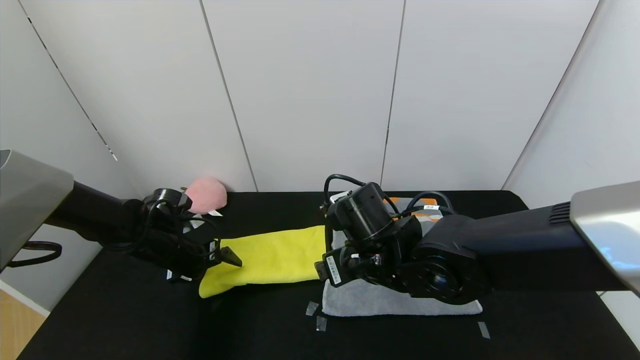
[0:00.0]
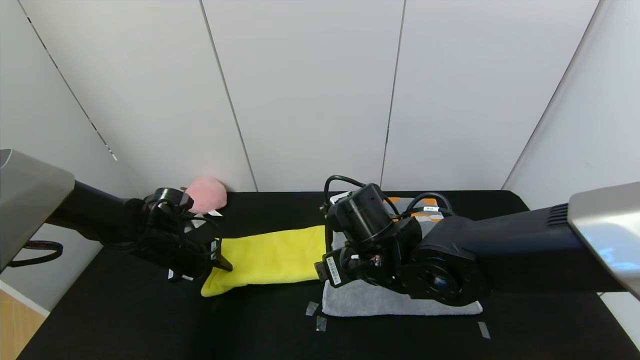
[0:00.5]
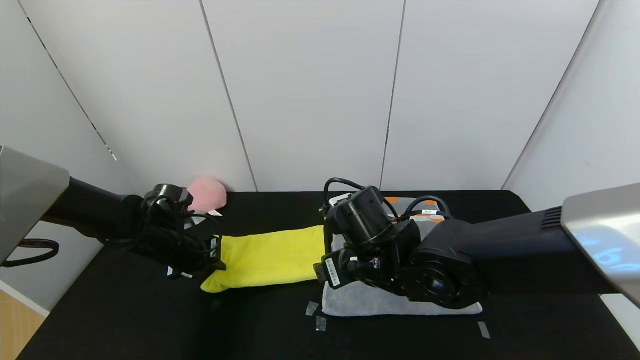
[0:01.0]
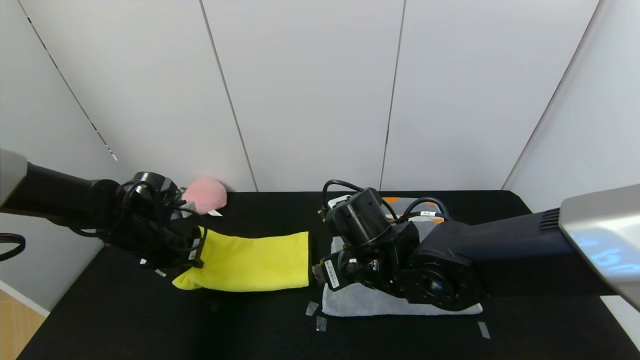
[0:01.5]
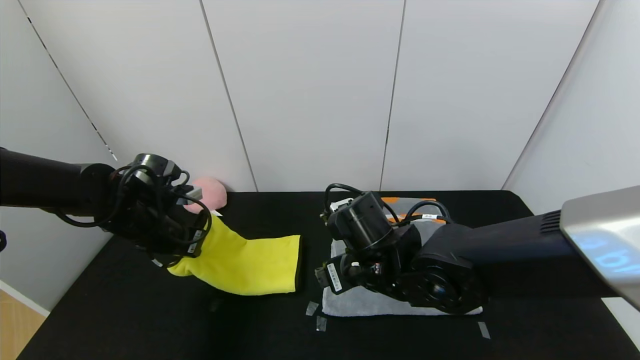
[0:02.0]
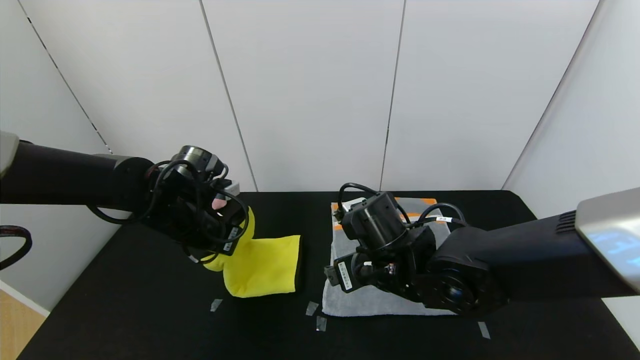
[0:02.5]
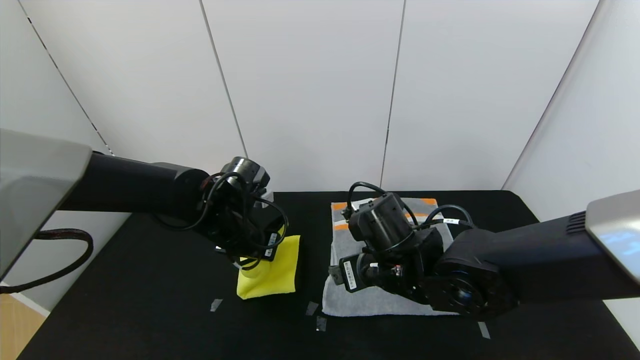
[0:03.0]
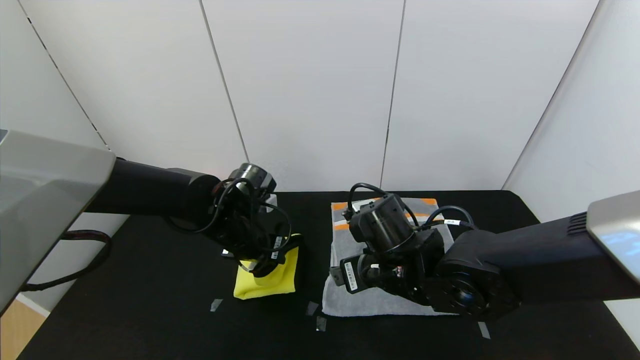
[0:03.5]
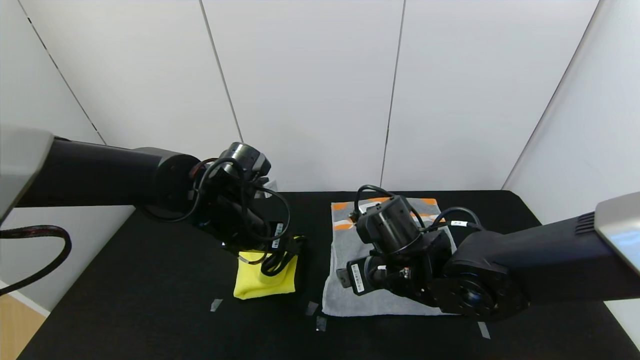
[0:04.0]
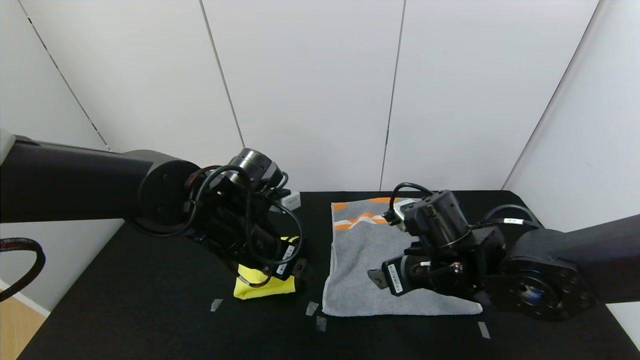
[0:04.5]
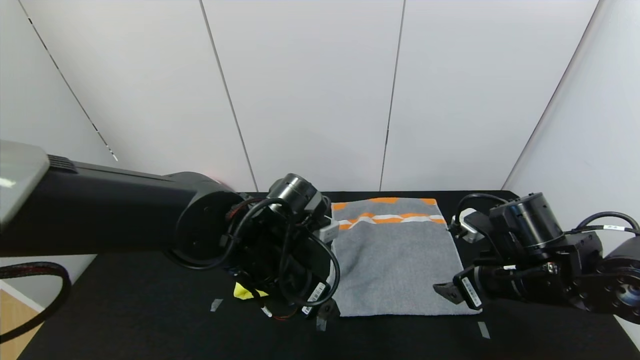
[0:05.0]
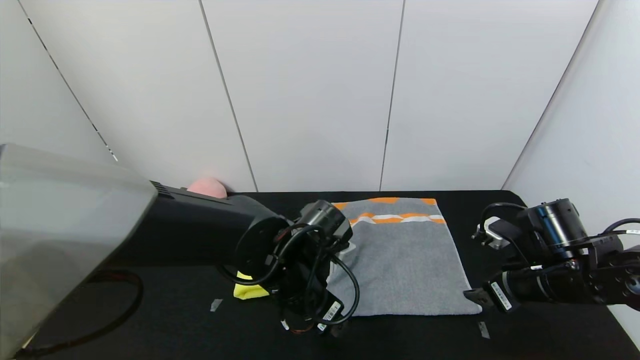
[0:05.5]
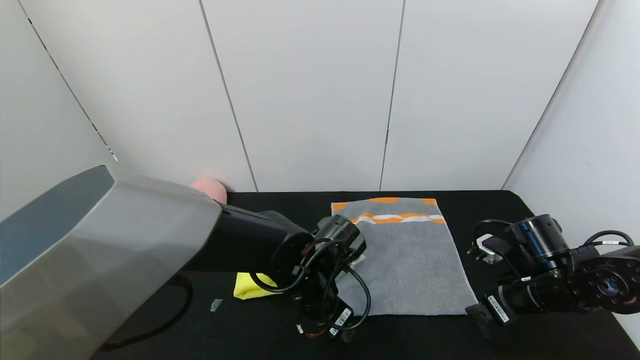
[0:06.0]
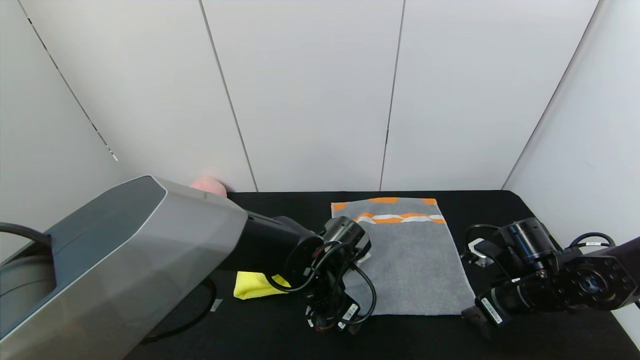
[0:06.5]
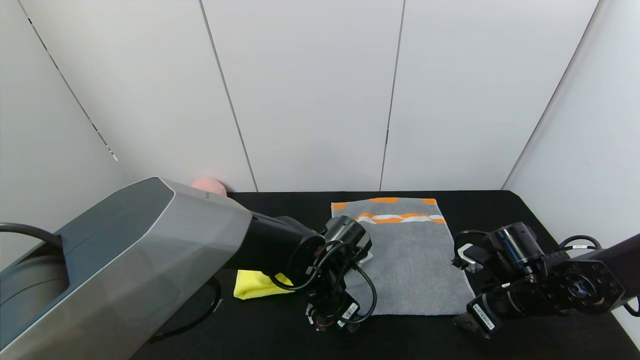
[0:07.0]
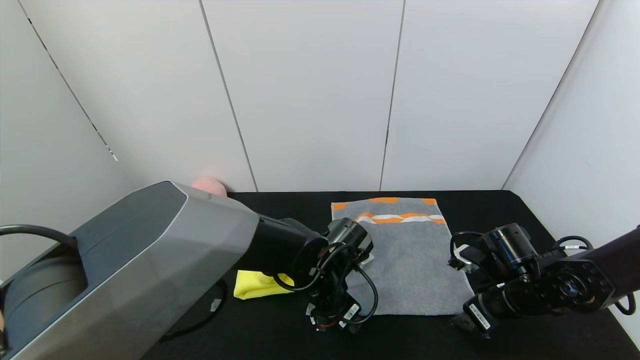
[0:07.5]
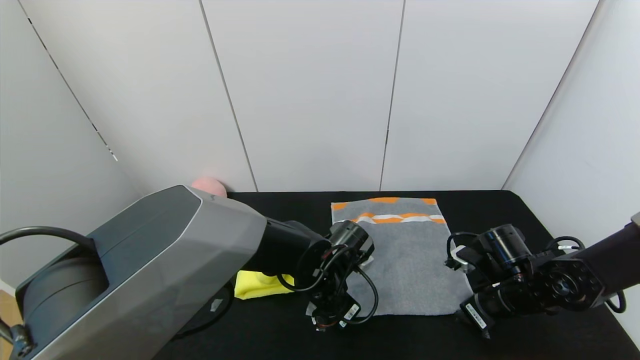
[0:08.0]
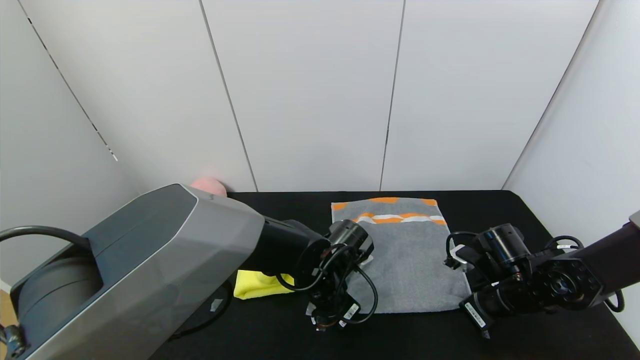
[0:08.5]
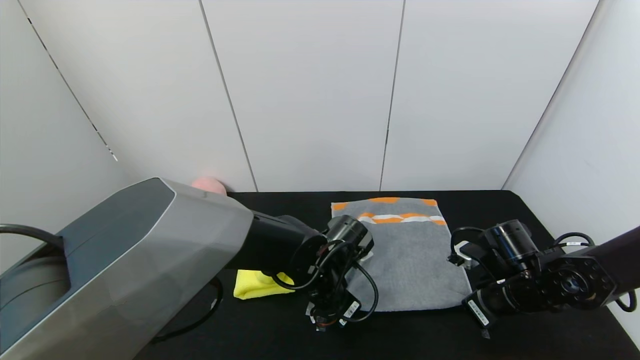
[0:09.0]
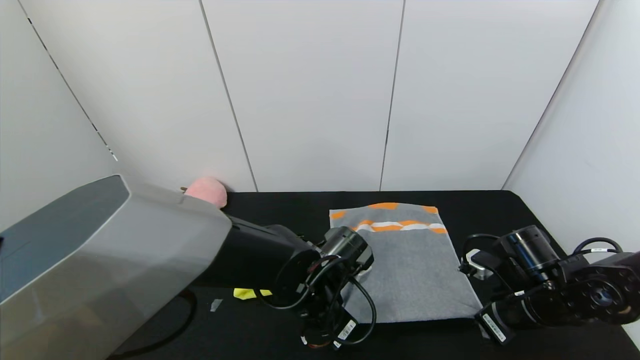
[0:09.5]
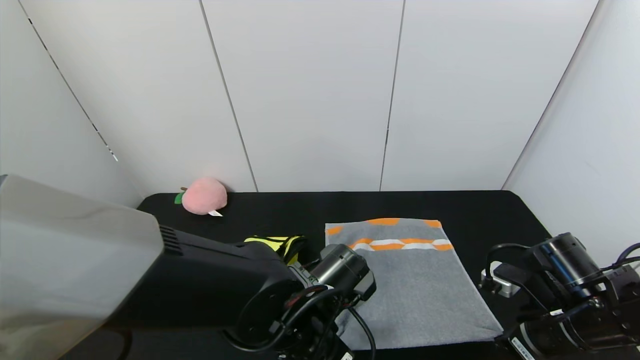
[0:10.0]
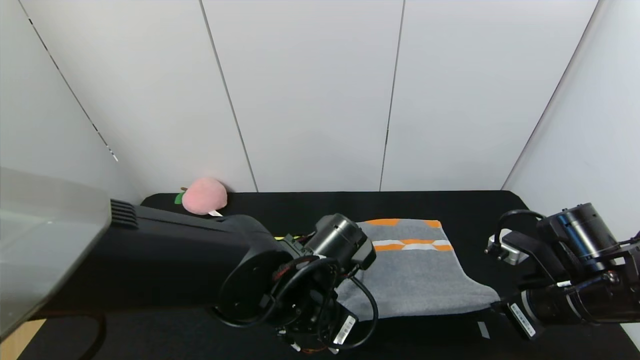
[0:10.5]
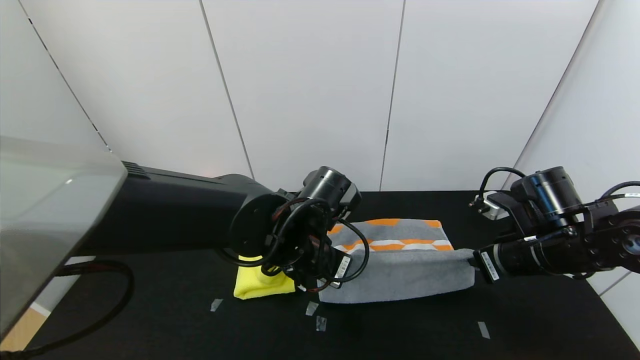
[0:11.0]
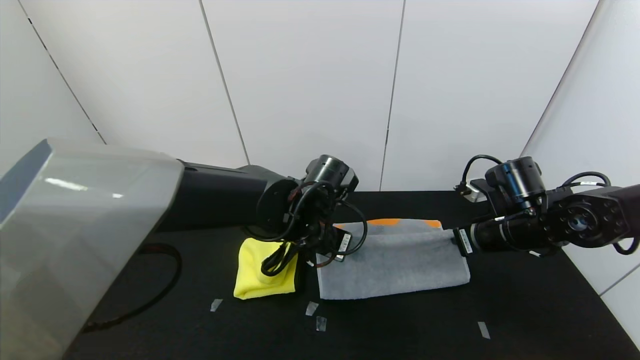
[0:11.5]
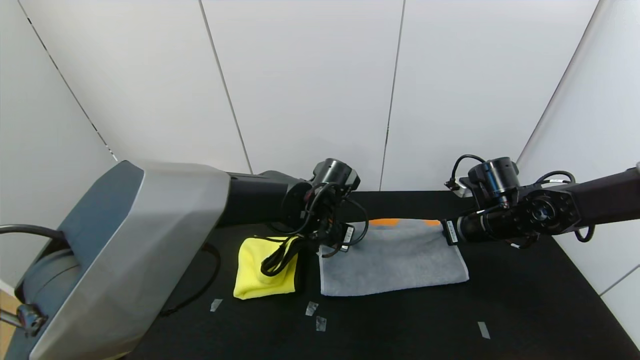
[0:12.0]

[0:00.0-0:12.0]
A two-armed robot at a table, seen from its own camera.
Task of the whole recording: Use the gripper to fold the yellow towel and grey towel in half twice,then put the yellow towel on the grey towel.
Step, 0:00.0 to 0:04.0: Fold the yellow towel from left to right with left gripper.
0:00.0 to 0:02.0: The left gripper moves upward, roughly 10 cm, and closes up.
0:02.0 to 0:04.0: The left gripper shifts some 15 cm to the right, and opens.
0:04.0 to 0:06.0: The left gripper is displaced to the right, downward and backward by some 15 cm; the right gripper goes roughly 20 cm to the right.
0:06.0 to 0:08.0: The right gripper closes up, while the left gripper closes.
0:08.0 to 0:10.0: Both grippers travel together backward, approximately 10 cm. The left gripper closes its fingers. The right gripper closes its fingers.
0:10.0 to 0:12.0: Both grippers travel together forward, about 15 cm.

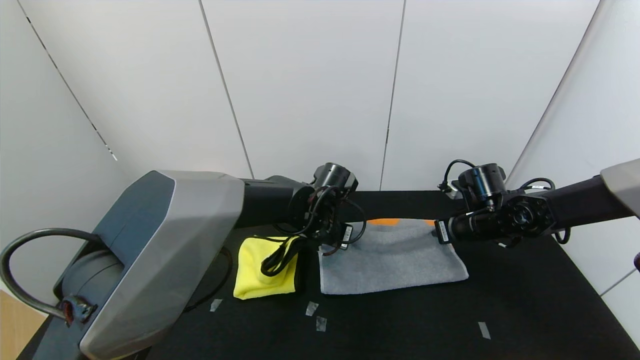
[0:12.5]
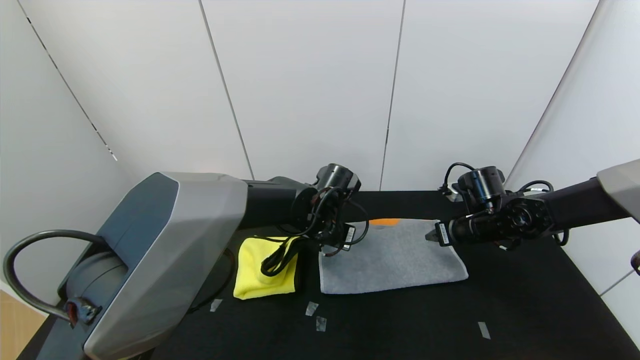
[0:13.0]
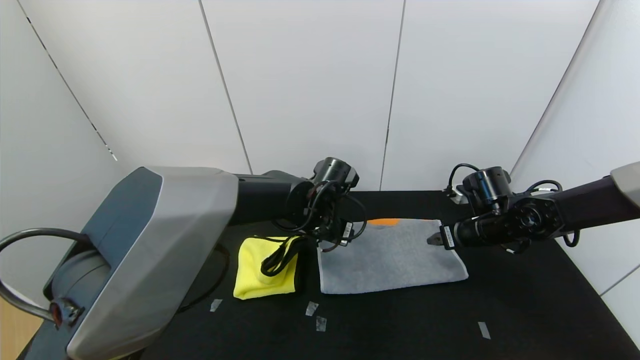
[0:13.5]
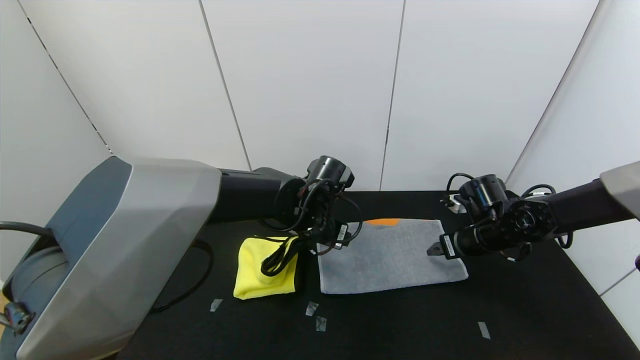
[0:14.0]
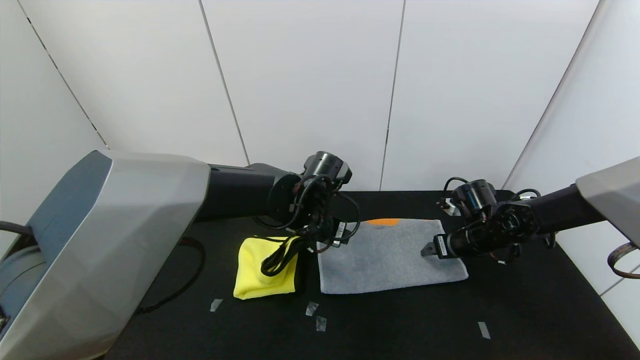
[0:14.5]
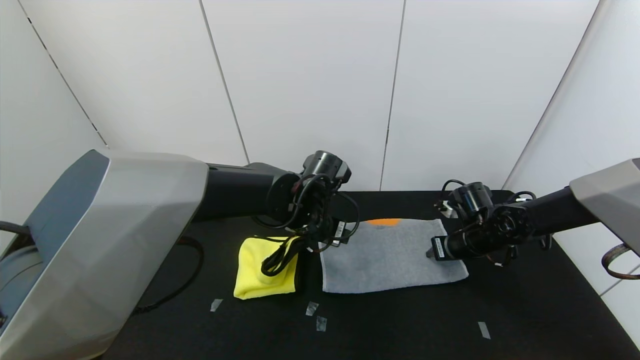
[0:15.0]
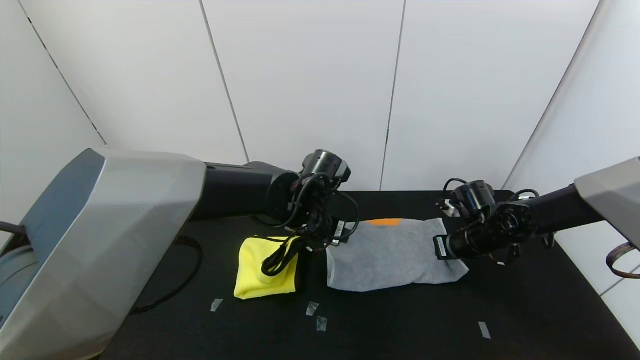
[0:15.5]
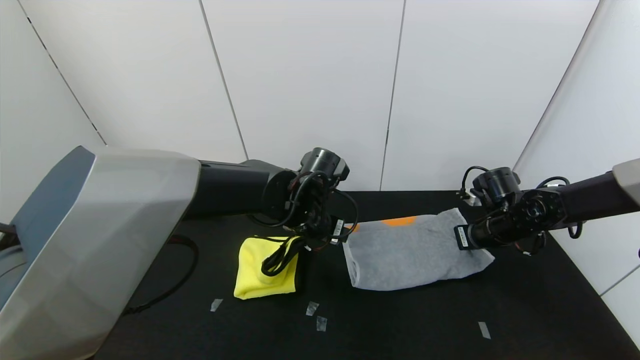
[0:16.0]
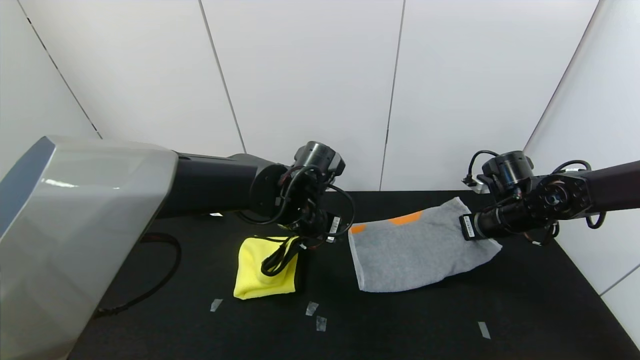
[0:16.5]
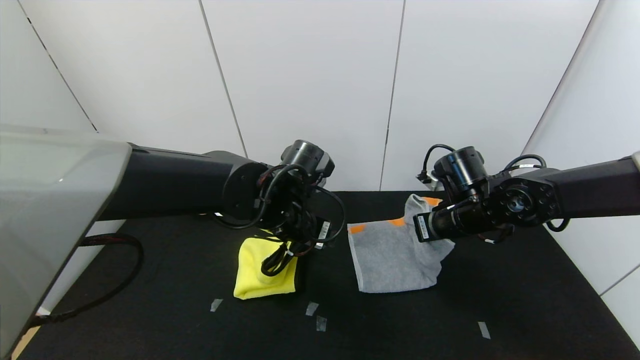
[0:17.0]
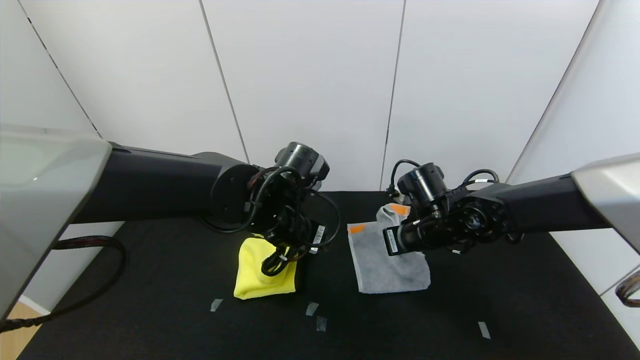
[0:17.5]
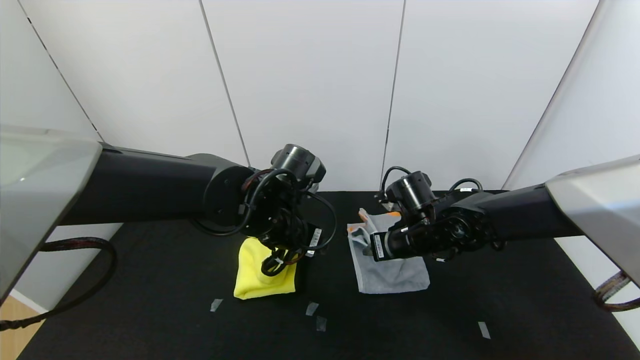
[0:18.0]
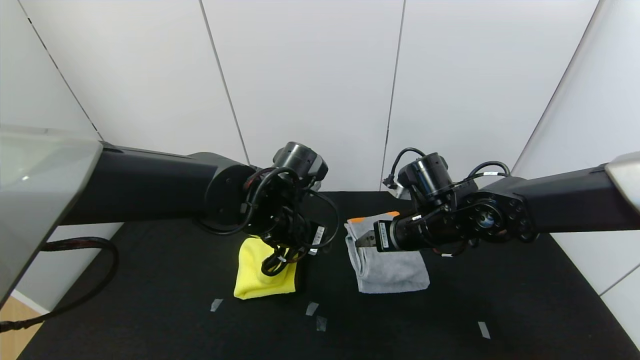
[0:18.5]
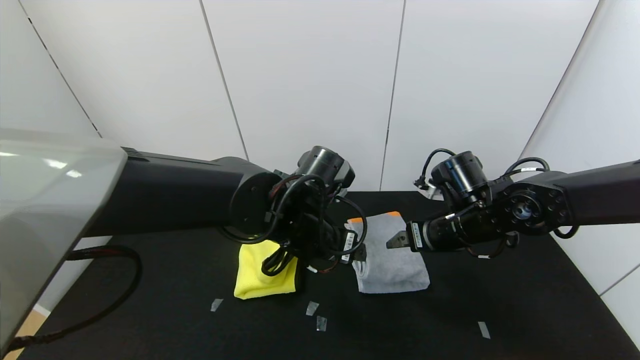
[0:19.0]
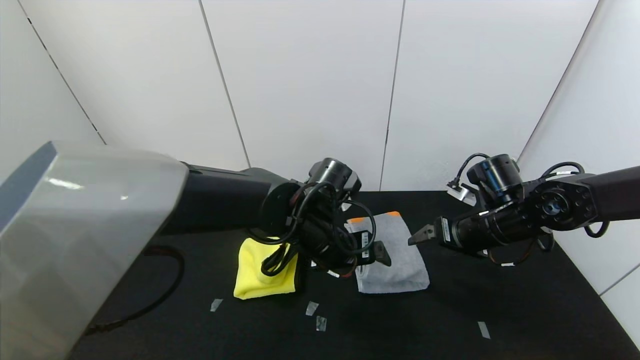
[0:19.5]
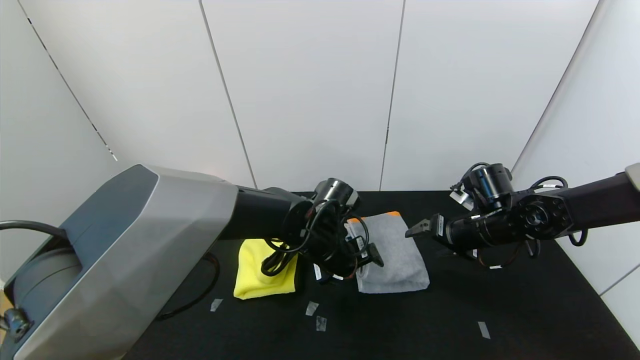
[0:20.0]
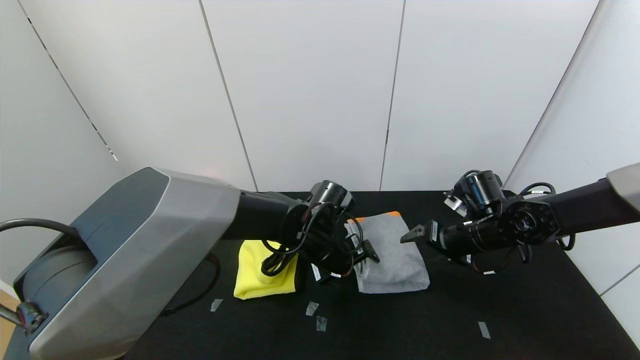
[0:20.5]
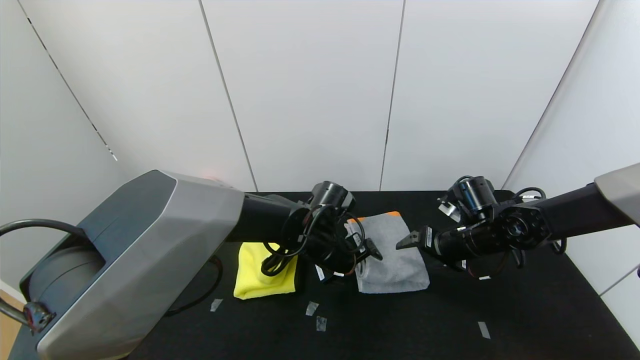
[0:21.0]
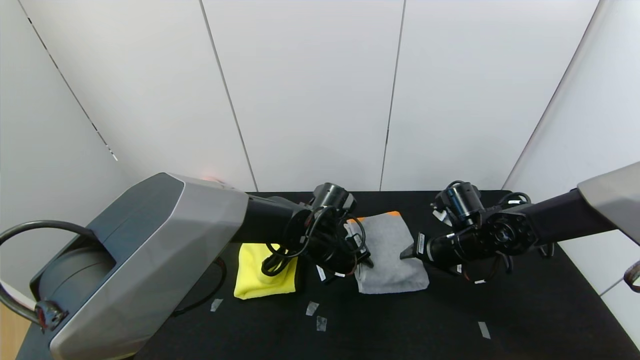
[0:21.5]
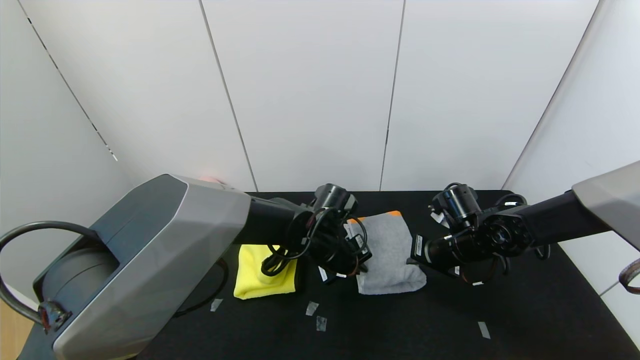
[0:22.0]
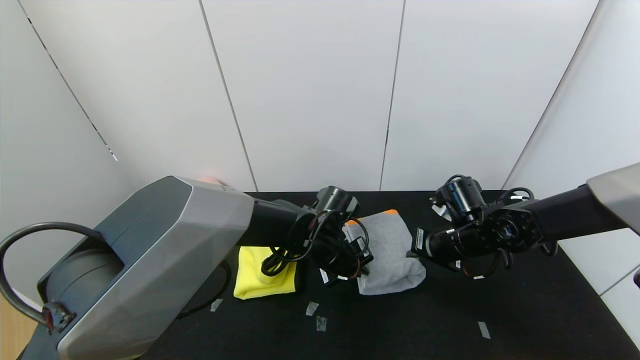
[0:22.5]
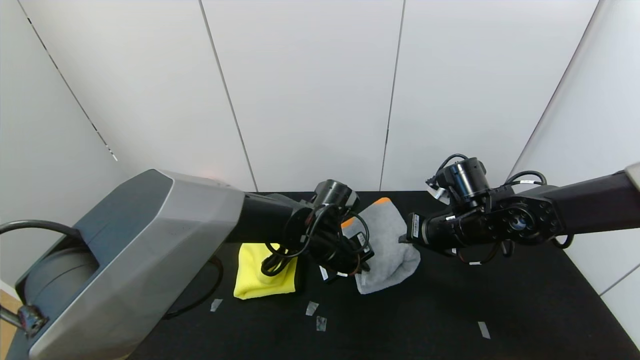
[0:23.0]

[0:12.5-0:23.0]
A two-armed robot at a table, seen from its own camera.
Task of the whole recording: Use the gripper to fold the yellow towel and grey towel in half twice,then put the yellow towel on the grey towel.
Step, 0:14.0 to 0:18.0: Fold the gray towel from right to left with right gripper.
0:12.5 to 0:14.5: The right gripper opens up; the left gripper opens up.
0:14.5 to 0:16.5: The right gripper is displaced upward by roughly 5 cm, and closes.
0:16.5 to 0:19.0: The right gripper heads to the left, covering some 10 cm, and opens. Meanwhile the left gripper ends up about 5 cm from where it was.
0:19.0 to 0:21.0: The right gripper goes roughly 5 cm downward. The left gripper goes approximately 10 cm downward and forward.
0:21.0 to 0:23.0: The right gripper moves roughly 5 cm, and closes up; the left gripper closes up.
